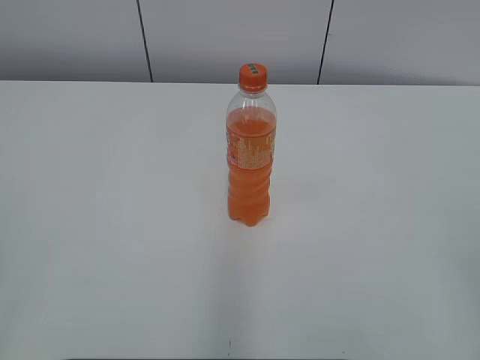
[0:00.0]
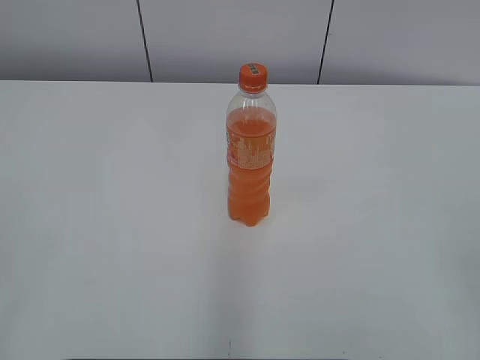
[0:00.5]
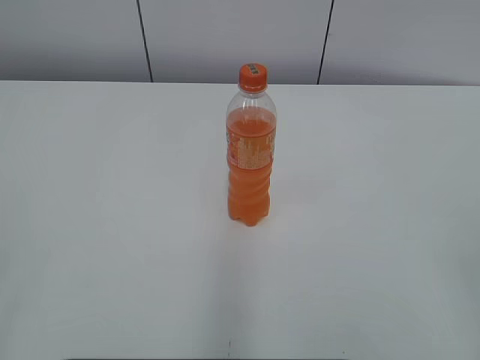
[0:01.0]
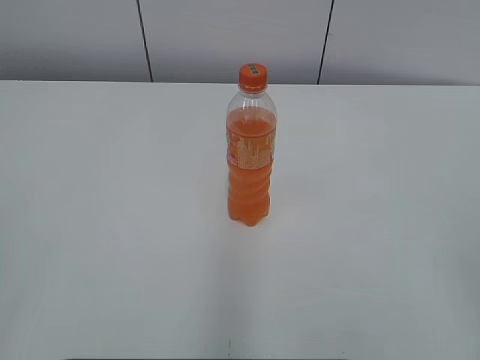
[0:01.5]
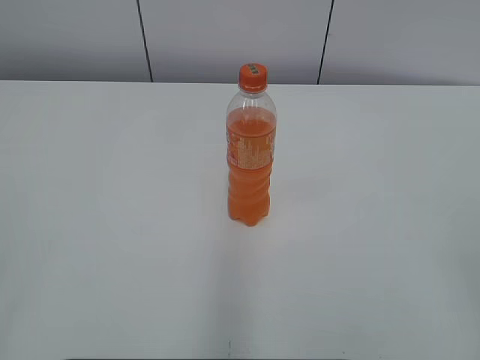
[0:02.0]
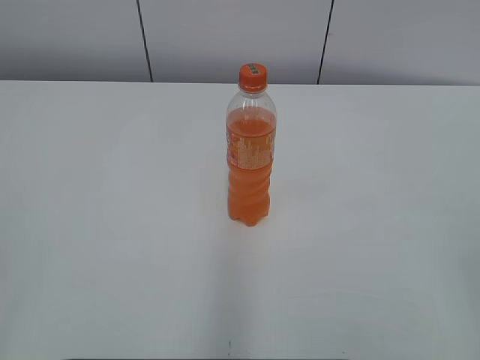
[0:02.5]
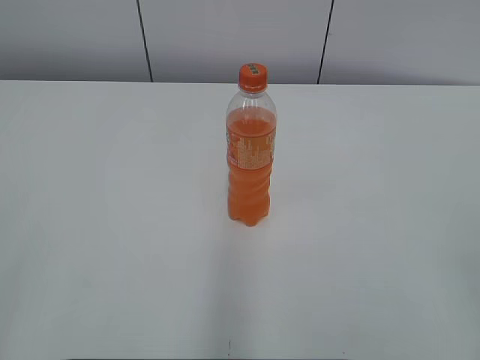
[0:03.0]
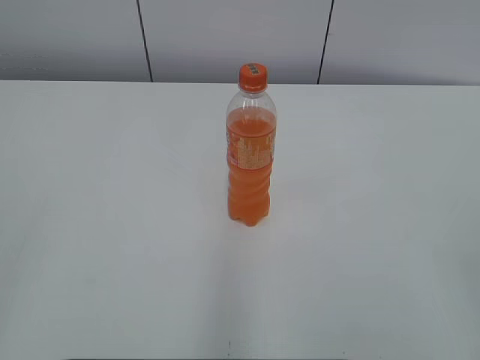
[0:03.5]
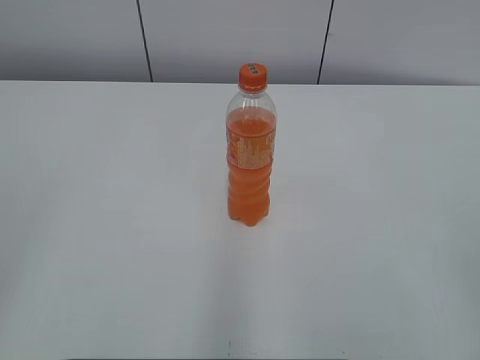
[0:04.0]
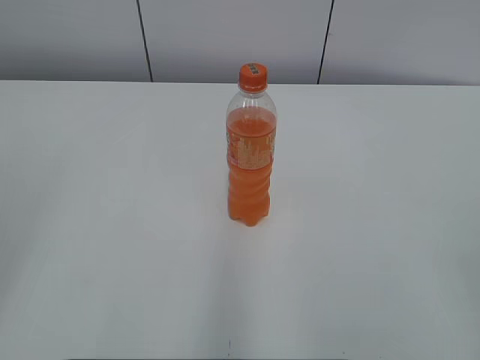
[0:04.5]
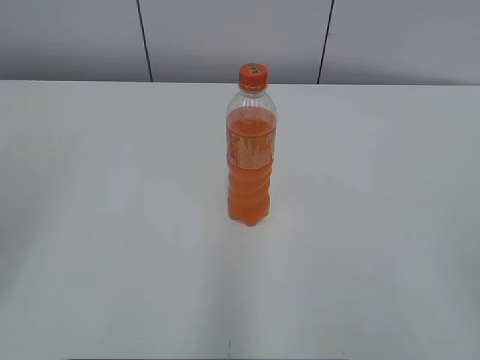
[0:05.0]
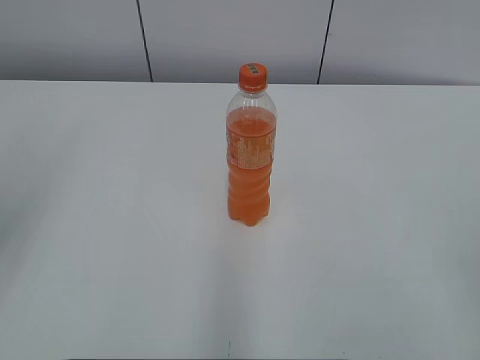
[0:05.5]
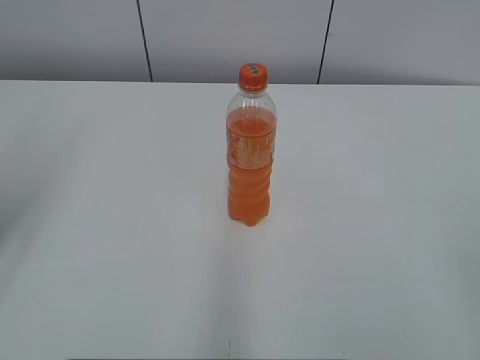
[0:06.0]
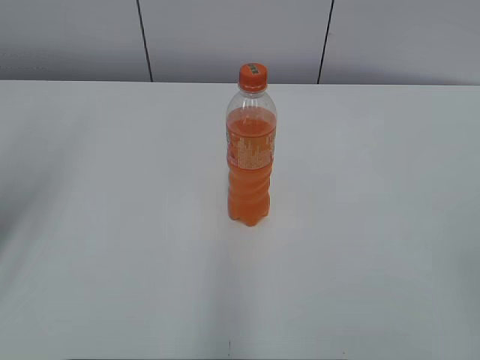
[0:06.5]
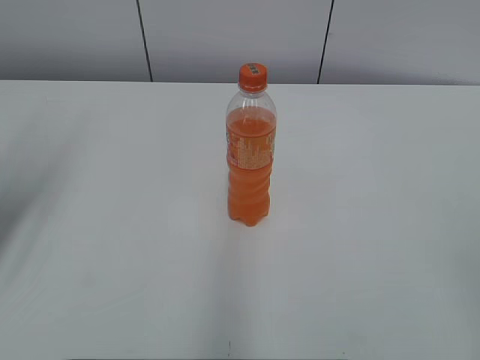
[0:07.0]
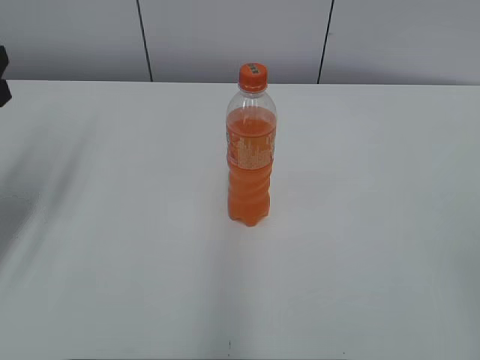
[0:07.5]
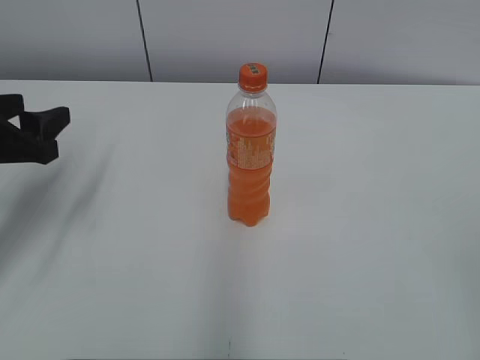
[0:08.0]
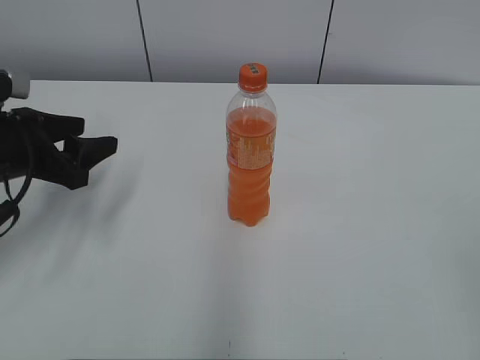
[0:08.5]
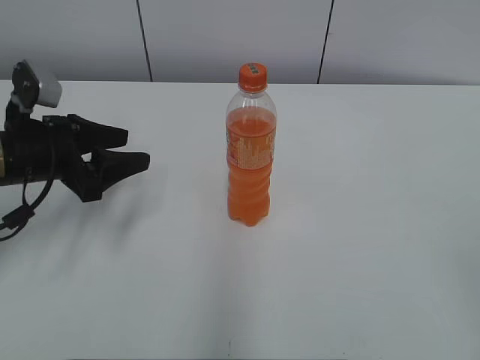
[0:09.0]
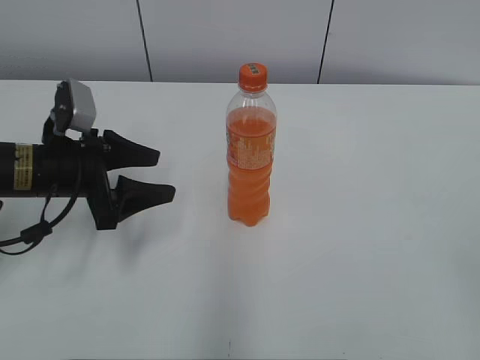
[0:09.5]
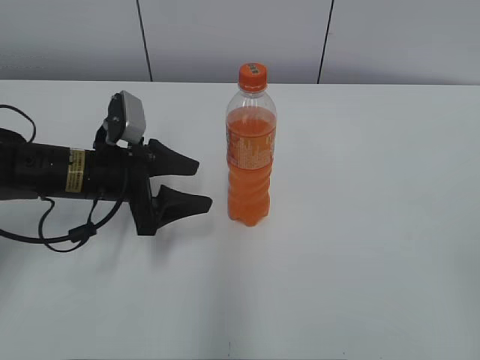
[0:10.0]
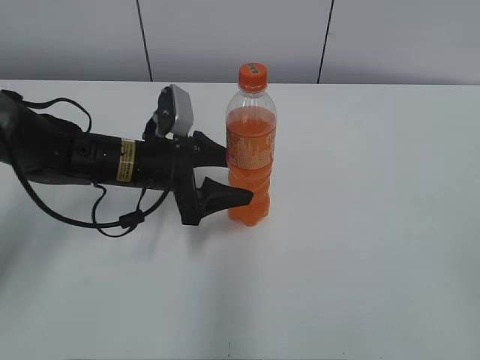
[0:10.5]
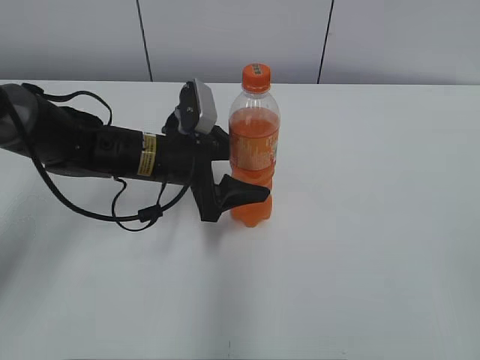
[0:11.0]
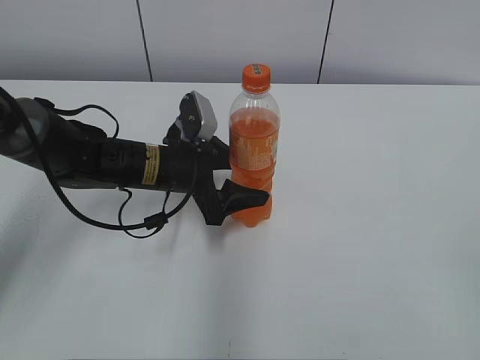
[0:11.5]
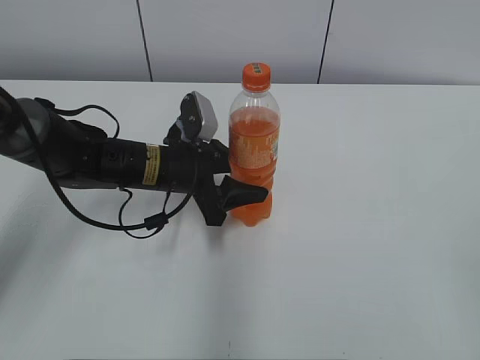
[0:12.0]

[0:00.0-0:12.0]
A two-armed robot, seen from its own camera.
Step, 0:00.0 to 0:11.5: Grab the Mirinda with the left hand.
0:06.0 to 0:08.0: The left gripper is displaced downward and forward by approximately 15 cm.
0:08.0 to 0:10.0: The left gripper shifts some 15 cm to the right, downward and forward.
0:10.0 to 0:12.0: The left gripper heads to the right, covering roughly 10 cm.

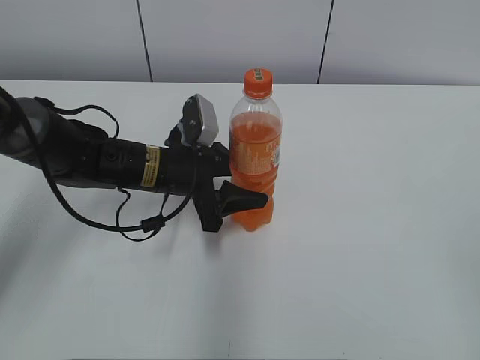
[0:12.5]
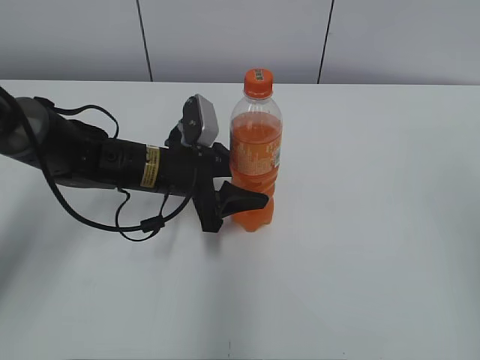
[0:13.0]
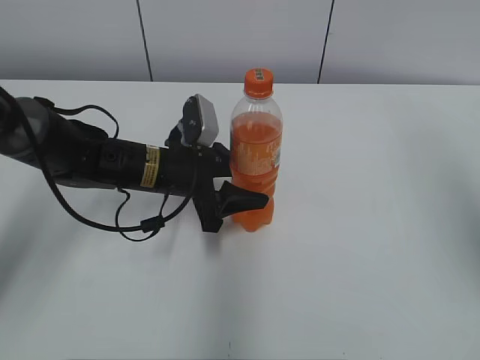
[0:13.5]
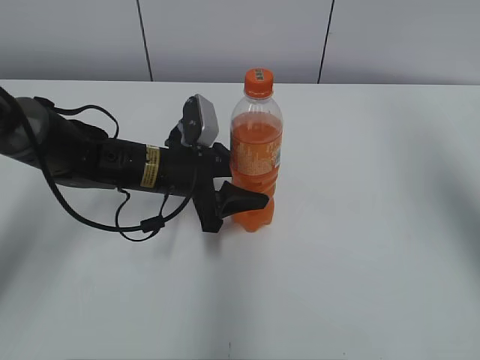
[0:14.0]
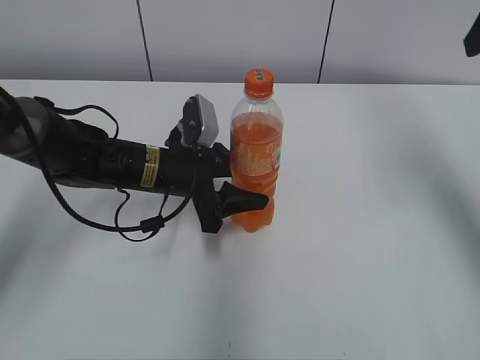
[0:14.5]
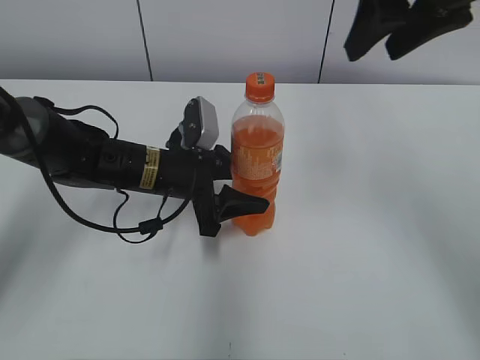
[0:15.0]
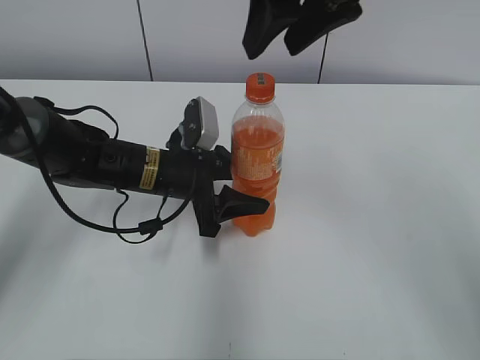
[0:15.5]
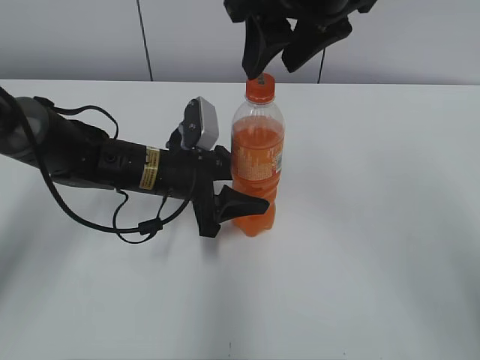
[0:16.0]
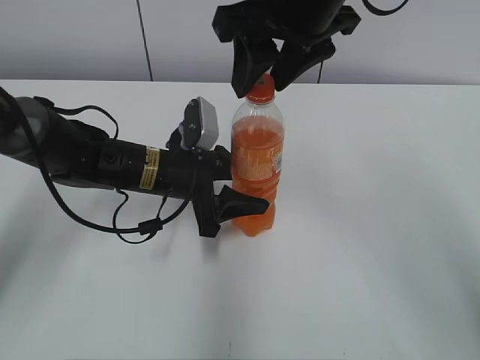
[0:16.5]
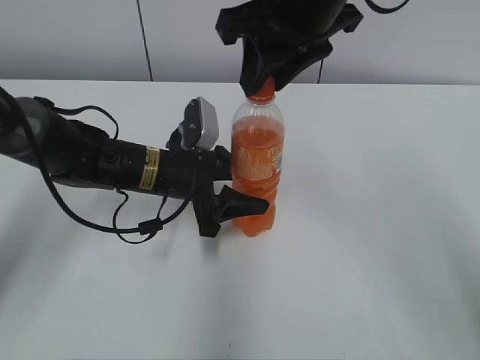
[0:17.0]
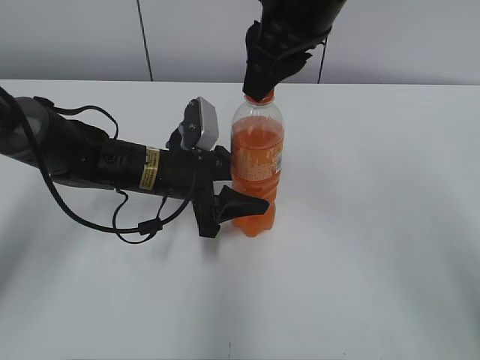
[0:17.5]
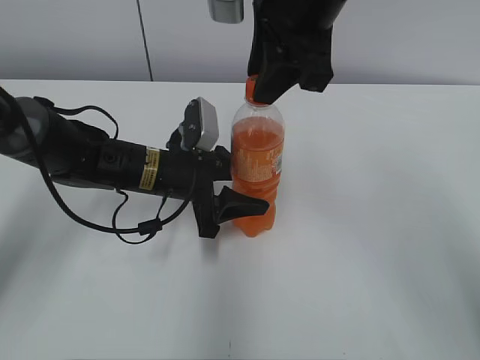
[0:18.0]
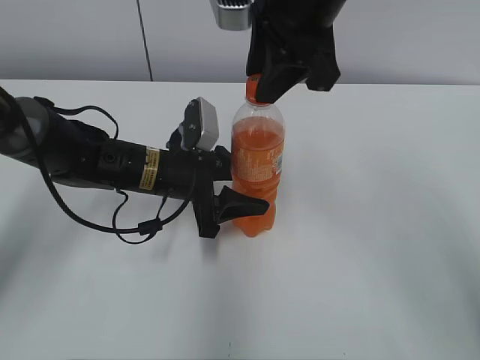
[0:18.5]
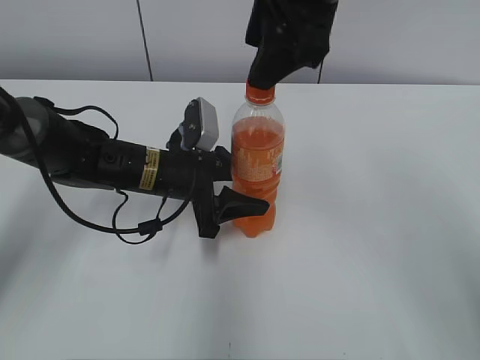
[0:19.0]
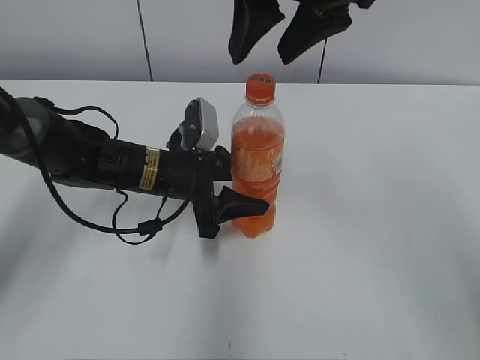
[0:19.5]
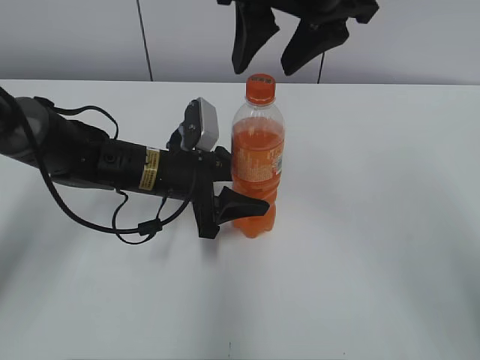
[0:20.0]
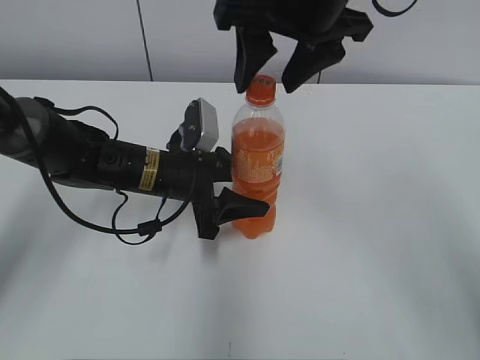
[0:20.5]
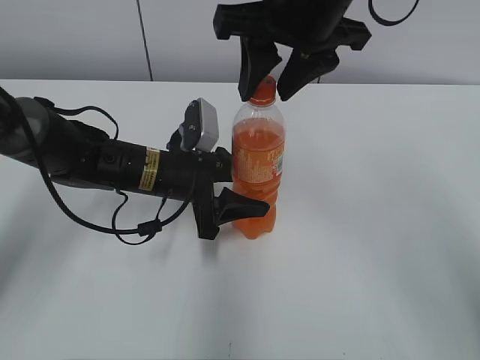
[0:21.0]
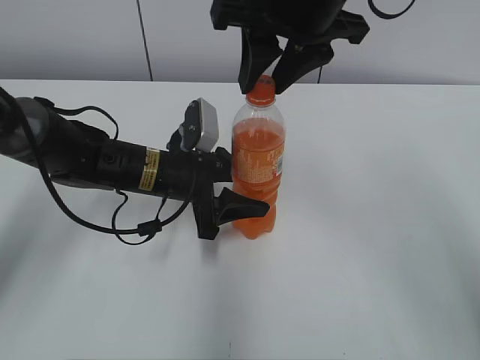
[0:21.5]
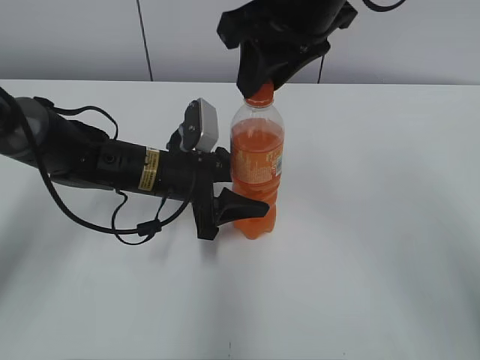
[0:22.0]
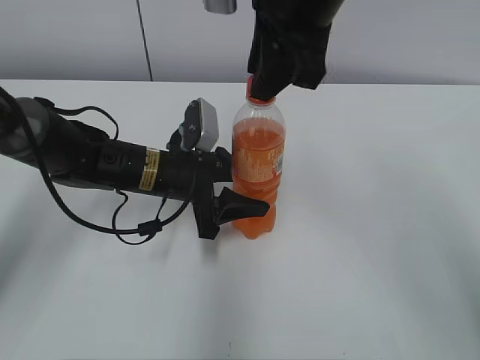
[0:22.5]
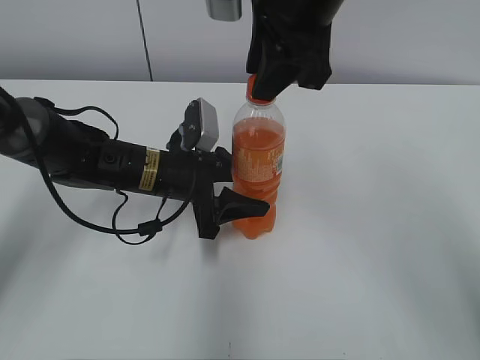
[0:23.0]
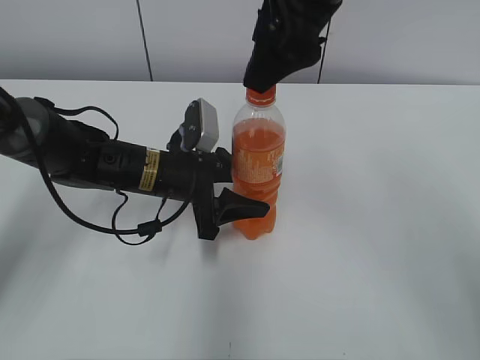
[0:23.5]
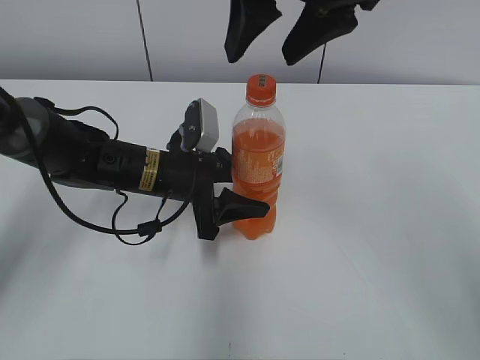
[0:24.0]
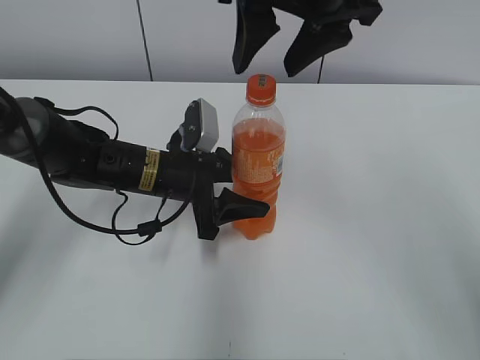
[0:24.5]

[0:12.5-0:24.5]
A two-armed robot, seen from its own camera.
0:12.5 to 0:14.5: The right gripper heads forward, covering about 30 cm, and closes up.
0:14.5 to 0:16.5: The right gripper moves to the left, roughly 20 cm.
0:16.5 to 0:18.5: The right gripper closes.
0:18.5 to 0:20.5: The right gripper opens its fingers.
0:20.5 to 0:22.5: The right gripper closes its fingers.
0:22.5 to 0:24.5: The right gripper opens its fingers.

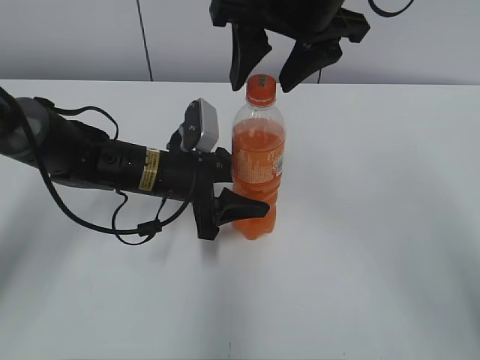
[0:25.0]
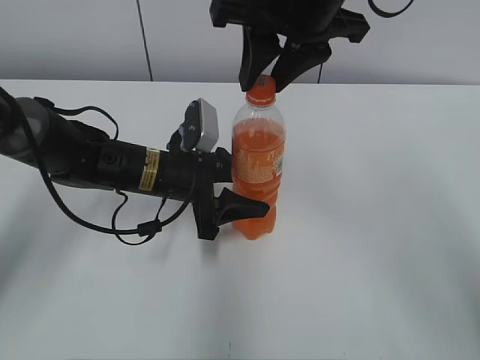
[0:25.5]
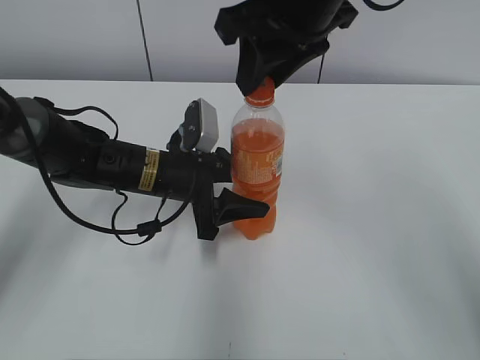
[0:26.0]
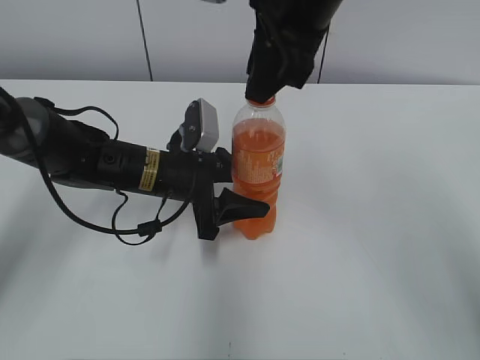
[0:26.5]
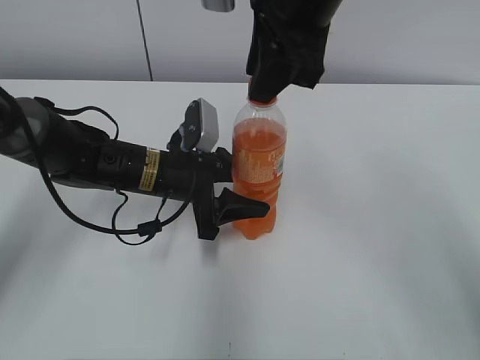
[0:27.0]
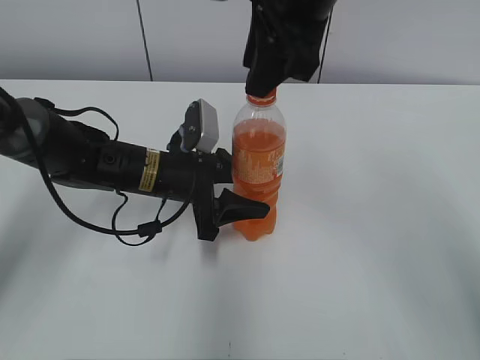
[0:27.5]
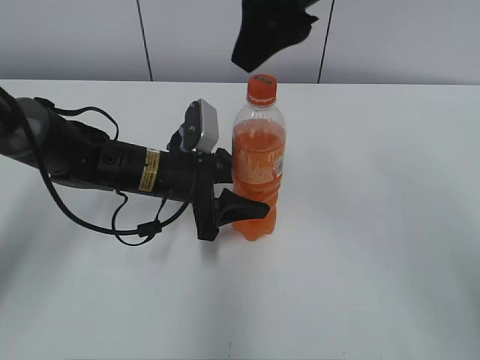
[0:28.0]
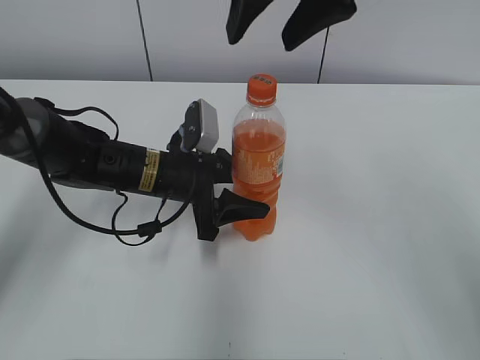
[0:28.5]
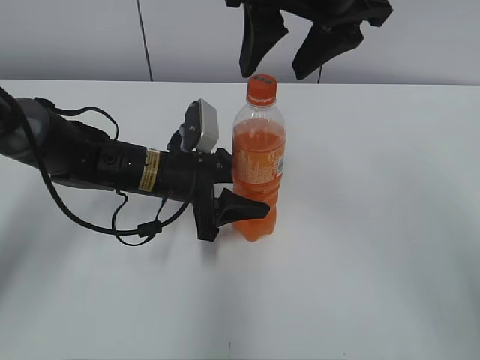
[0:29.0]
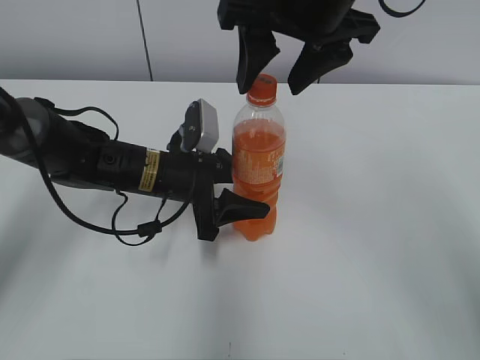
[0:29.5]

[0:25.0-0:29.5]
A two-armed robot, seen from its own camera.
0:25.0 to 0:27.0: The right gripper closes.
0:27.0 to 0:29.5: The right gripper opens.
